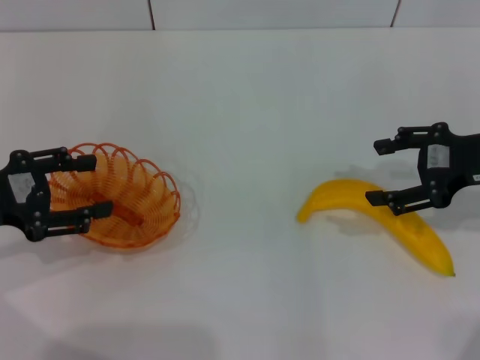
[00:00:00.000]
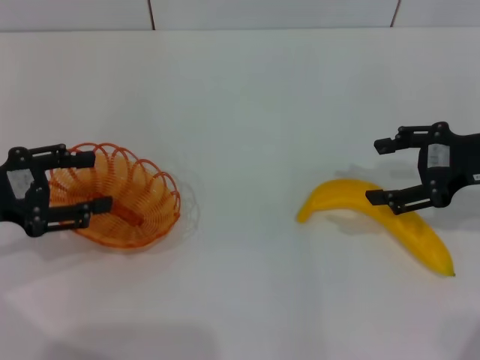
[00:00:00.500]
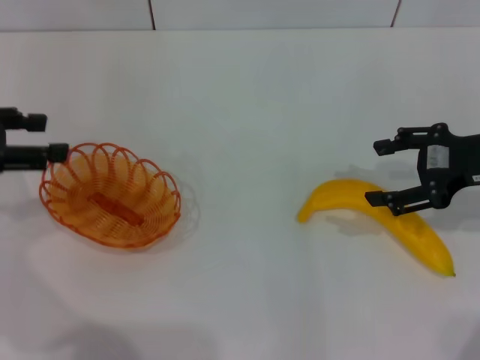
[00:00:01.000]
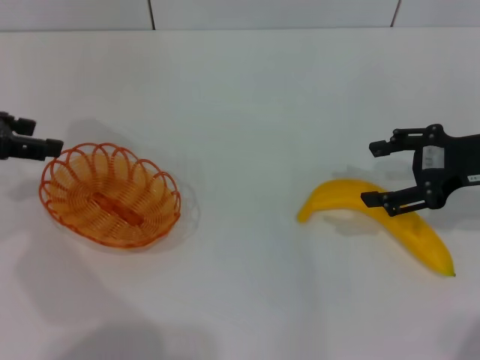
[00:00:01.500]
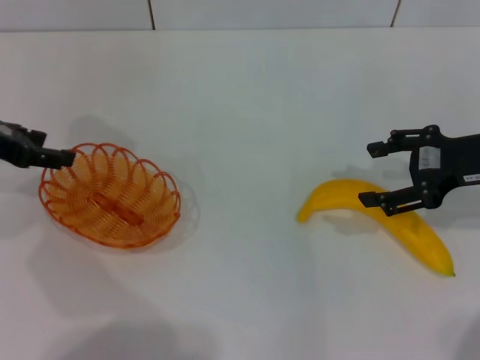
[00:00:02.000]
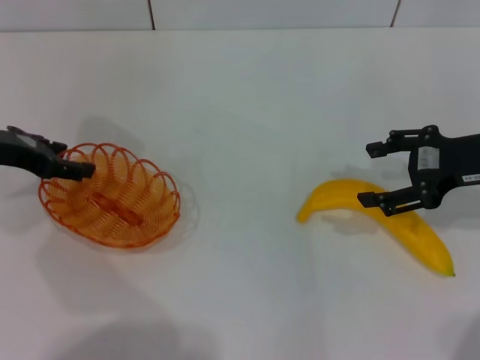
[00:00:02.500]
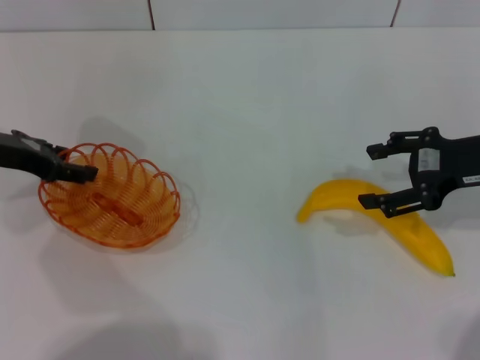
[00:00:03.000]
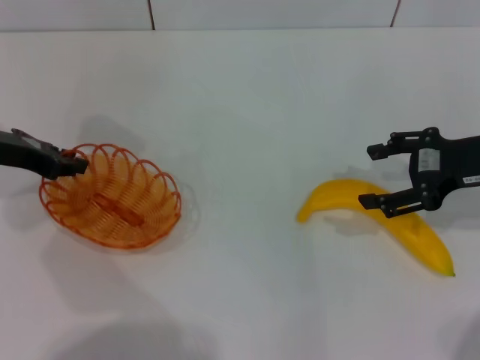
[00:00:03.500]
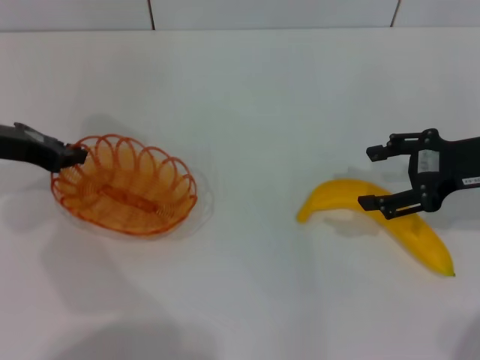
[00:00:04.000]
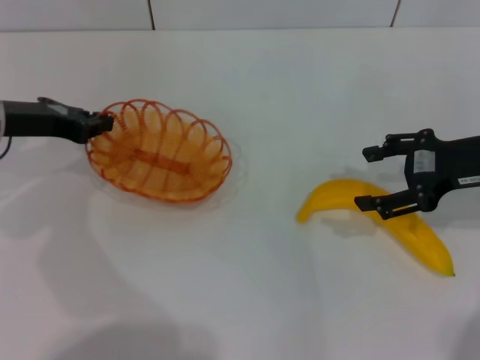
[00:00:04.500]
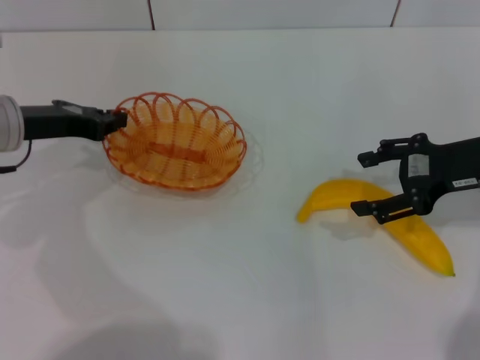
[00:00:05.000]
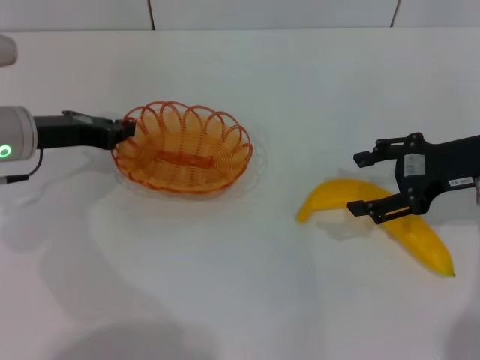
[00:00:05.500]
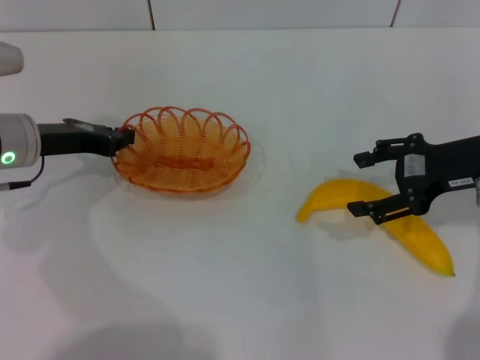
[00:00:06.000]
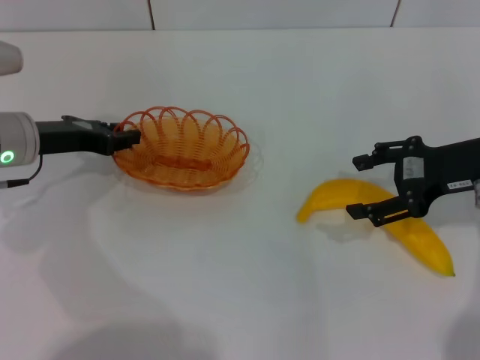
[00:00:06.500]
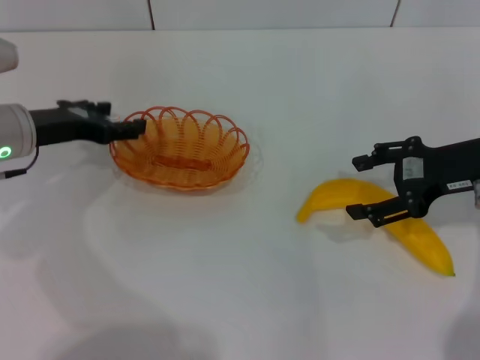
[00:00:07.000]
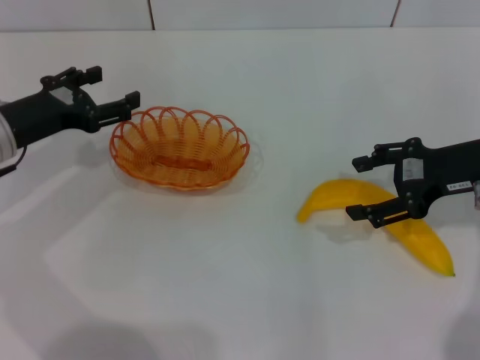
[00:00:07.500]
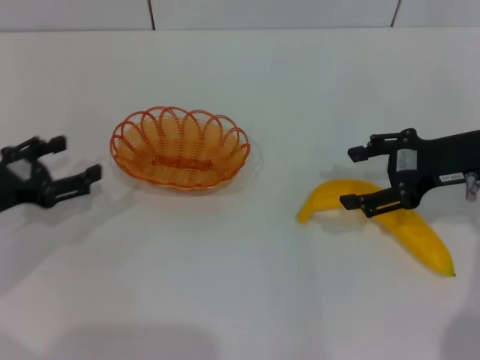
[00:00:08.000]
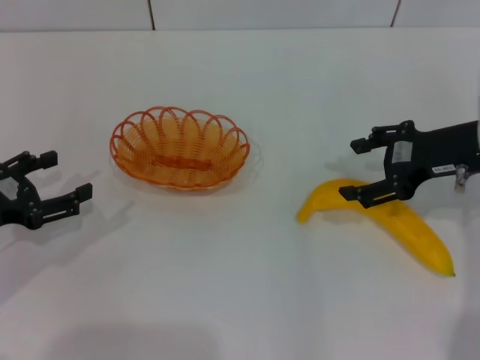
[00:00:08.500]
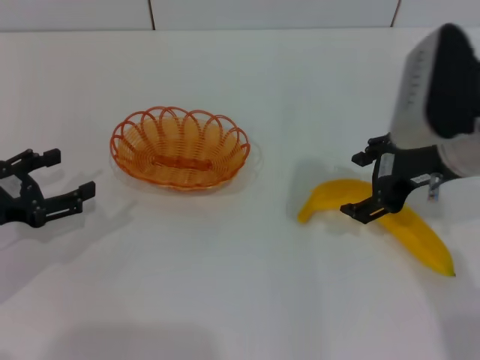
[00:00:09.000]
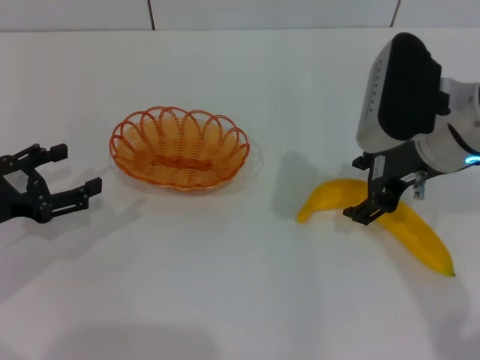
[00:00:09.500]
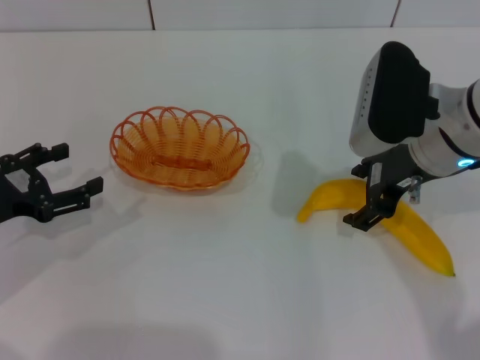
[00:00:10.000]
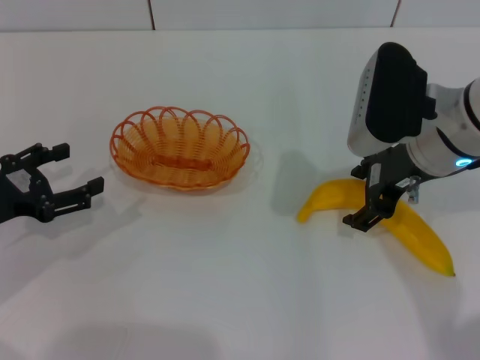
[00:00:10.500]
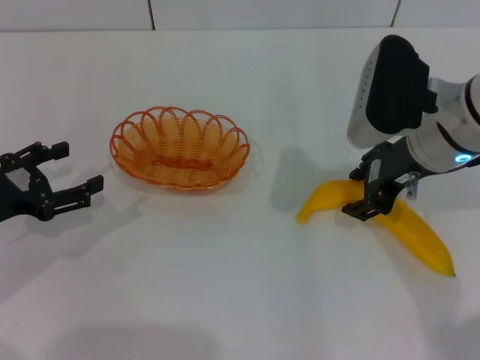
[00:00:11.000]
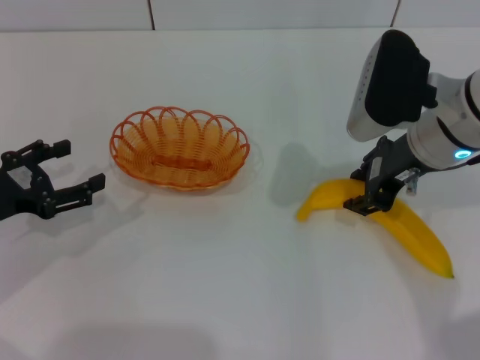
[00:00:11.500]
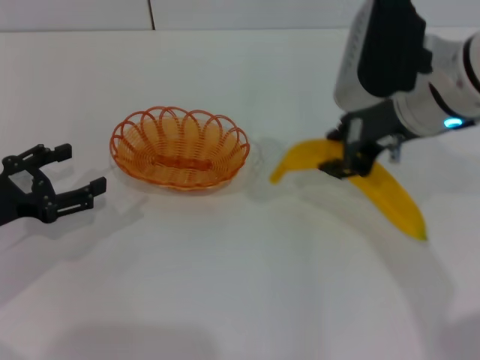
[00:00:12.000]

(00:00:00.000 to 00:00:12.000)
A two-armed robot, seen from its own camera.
Step, 00:00:00.000 - 00:00:04.500: Pick up the basket with the left gripper.
Step, 00:00:05.000 - 00:00:06.500: Place the basket in the center of view with the left gripper.
00:00:00.000 - 00:00:02.000: The left gripper is displaced forward by approximately 10 cm.
00:00:02.000 - 00:00:04.000: The left gripper closes.
00:00:04.000 - 00:00:06.000: The left gripper shifts by roughly 5 cm.
00:00:06.000 - 00:00:08.000: The left gripper shifts approximately 10 cm backward and to the left, and opens its fingers.
00:00:08.000 - 00:00:10.000: The right gripper travels to the left by roughly 10 cm.
00:00:10.000 - 00:00:12.000: The right gripper closes up.

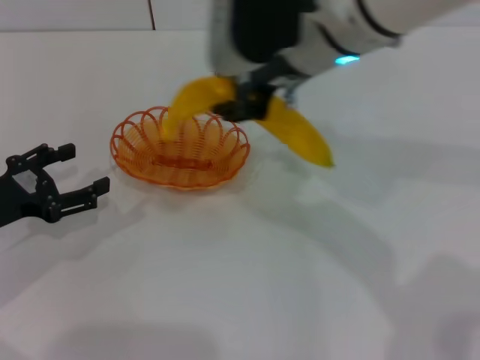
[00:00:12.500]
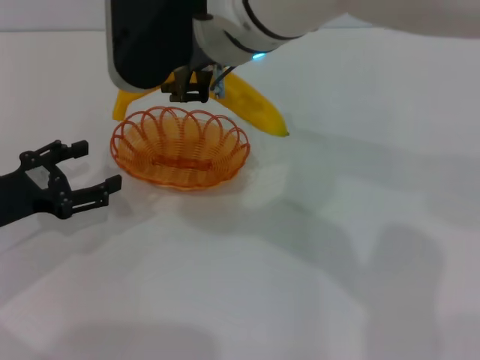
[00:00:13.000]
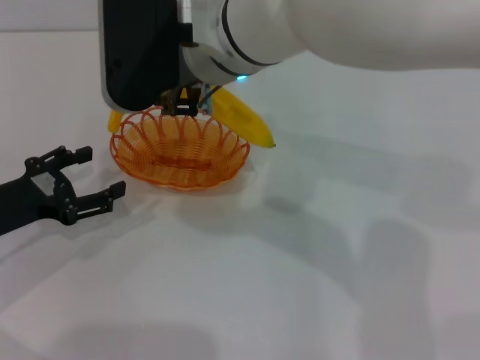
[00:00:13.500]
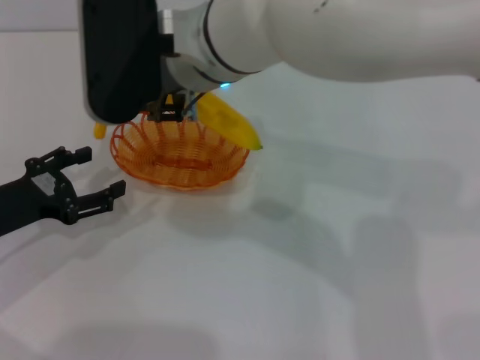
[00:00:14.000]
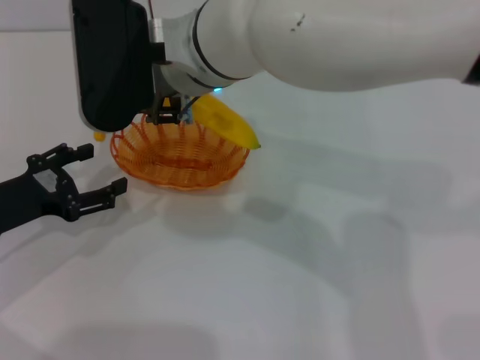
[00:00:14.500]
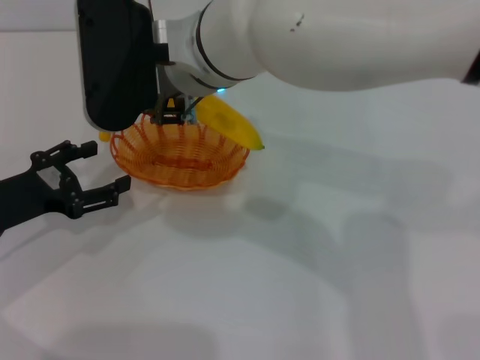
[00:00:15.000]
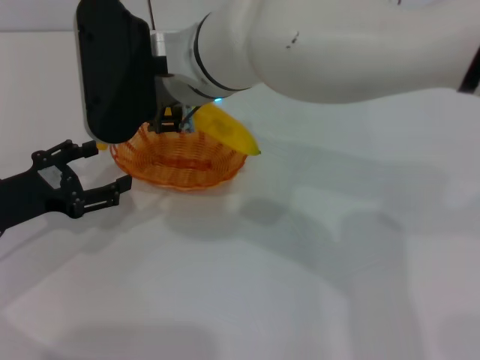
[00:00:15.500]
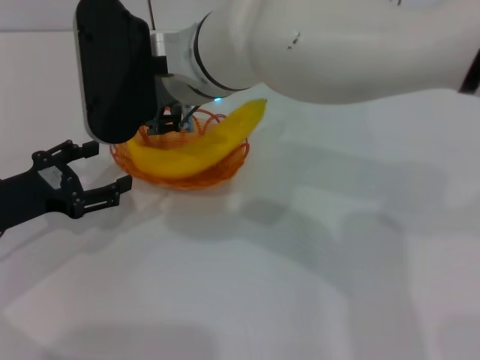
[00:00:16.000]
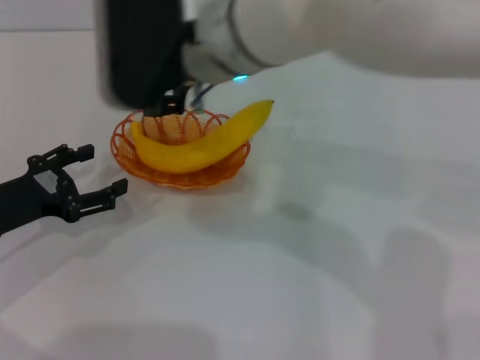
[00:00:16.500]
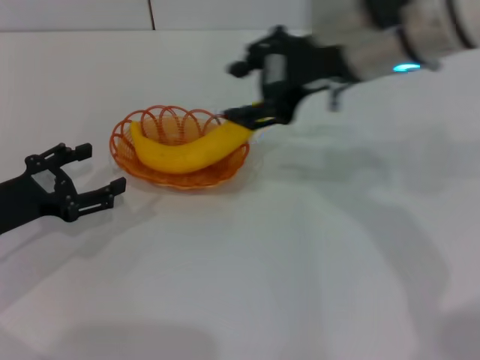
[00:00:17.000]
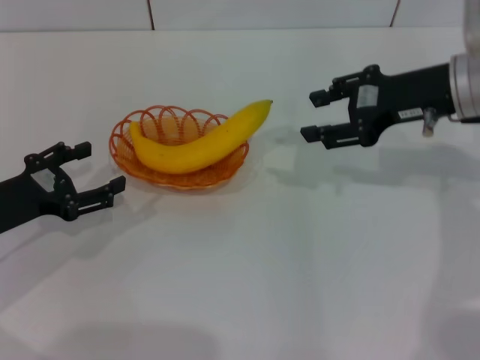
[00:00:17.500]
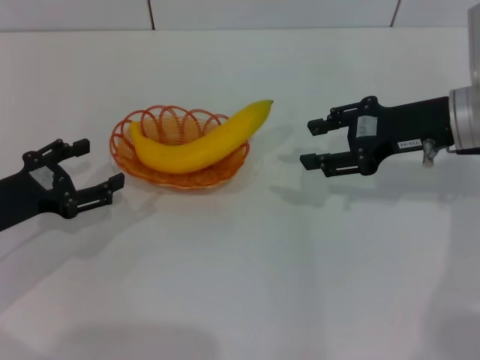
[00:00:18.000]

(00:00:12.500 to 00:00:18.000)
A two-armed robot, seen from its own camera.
Step, 00:00:12.500 - 00:00:16.000: Place the banana into the basket with the right gripper.
00:00:12.500 - 00:00:14.500: The right gripper travels to the left by roughly 10 cm.
00:00:14.500 - 00:00:16.000: Both grippers stay put.
00:00:16.000 - 00:00:18.000: The right gripper heads to the right, covering approximately 25 cm.
